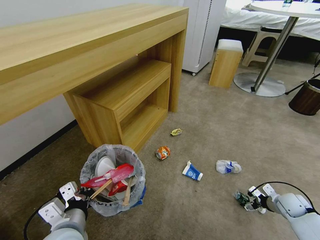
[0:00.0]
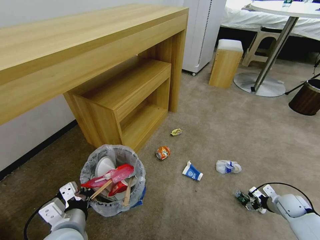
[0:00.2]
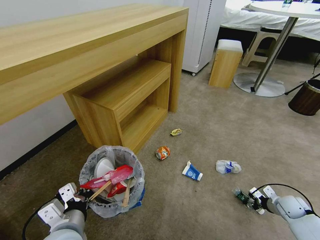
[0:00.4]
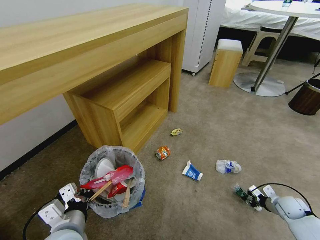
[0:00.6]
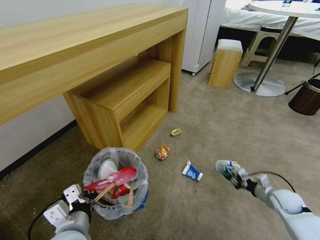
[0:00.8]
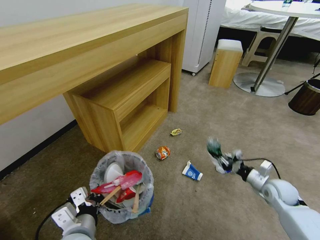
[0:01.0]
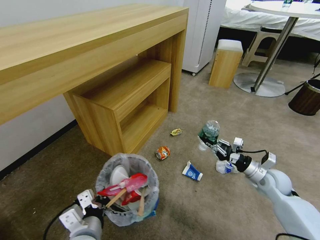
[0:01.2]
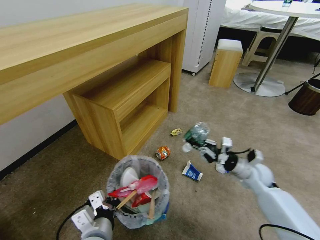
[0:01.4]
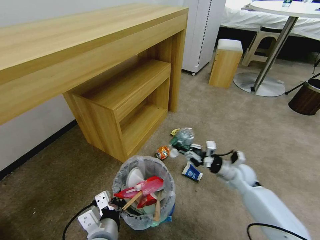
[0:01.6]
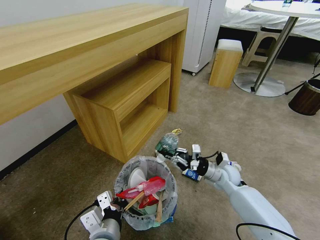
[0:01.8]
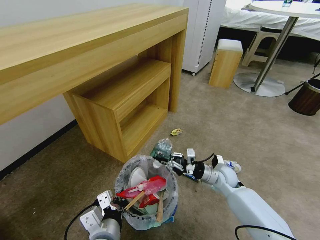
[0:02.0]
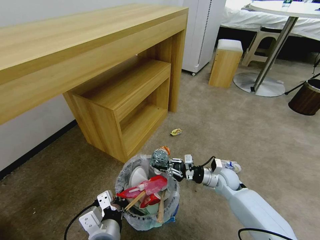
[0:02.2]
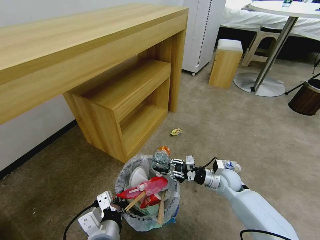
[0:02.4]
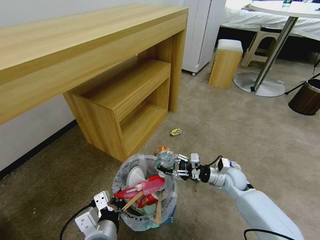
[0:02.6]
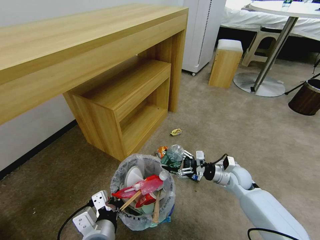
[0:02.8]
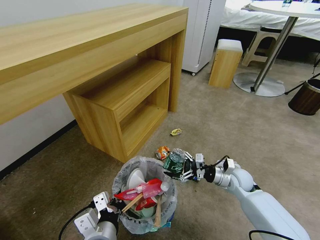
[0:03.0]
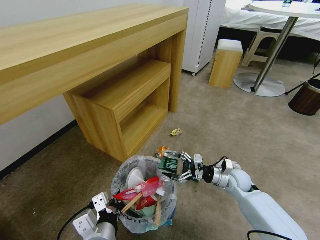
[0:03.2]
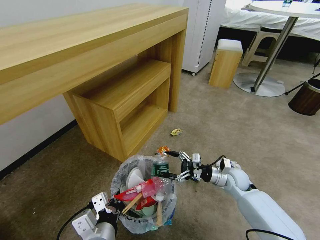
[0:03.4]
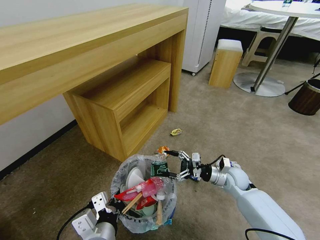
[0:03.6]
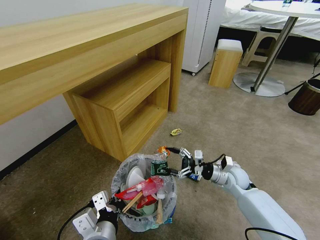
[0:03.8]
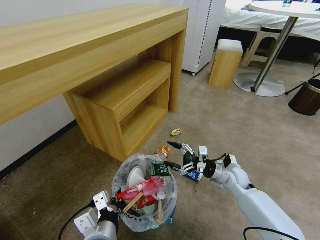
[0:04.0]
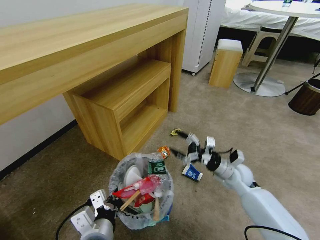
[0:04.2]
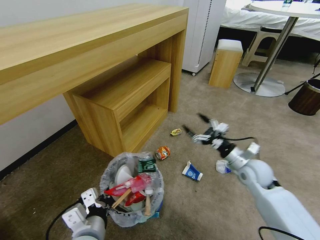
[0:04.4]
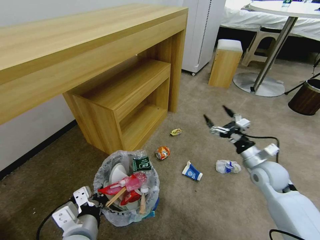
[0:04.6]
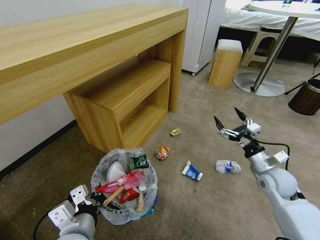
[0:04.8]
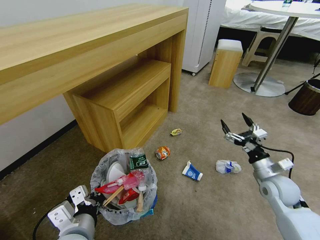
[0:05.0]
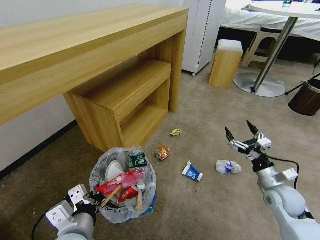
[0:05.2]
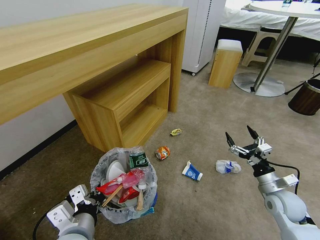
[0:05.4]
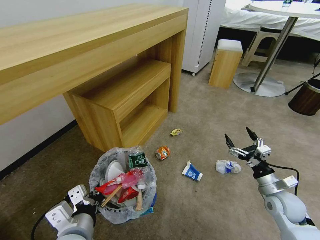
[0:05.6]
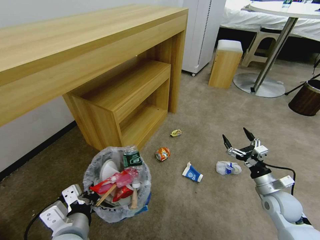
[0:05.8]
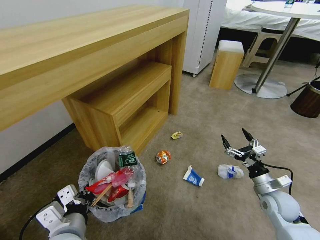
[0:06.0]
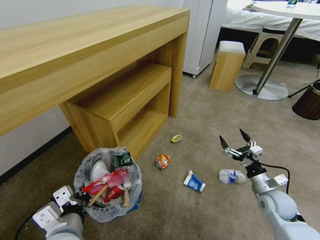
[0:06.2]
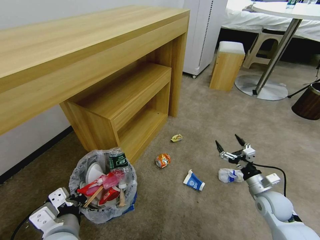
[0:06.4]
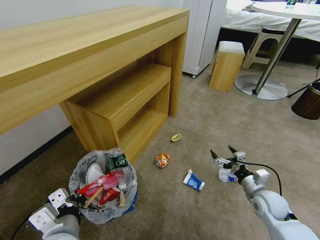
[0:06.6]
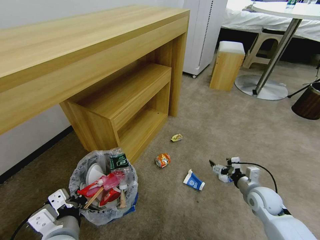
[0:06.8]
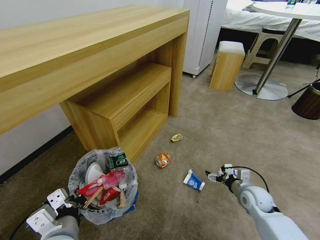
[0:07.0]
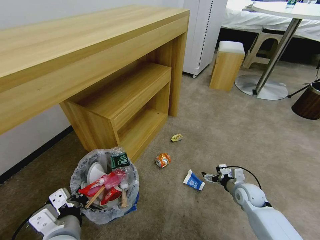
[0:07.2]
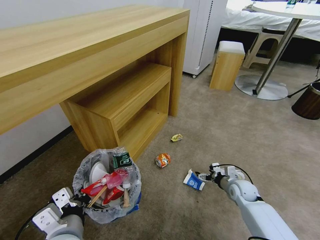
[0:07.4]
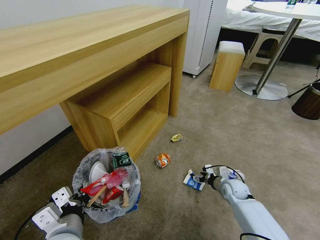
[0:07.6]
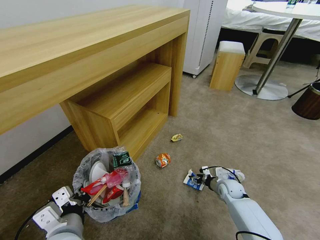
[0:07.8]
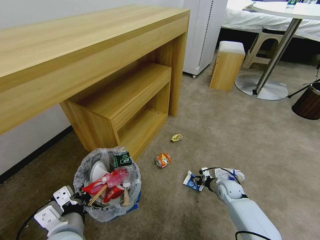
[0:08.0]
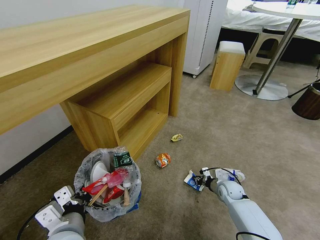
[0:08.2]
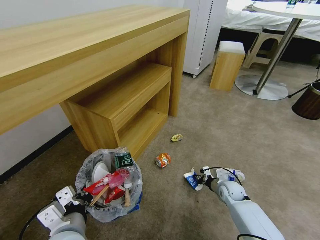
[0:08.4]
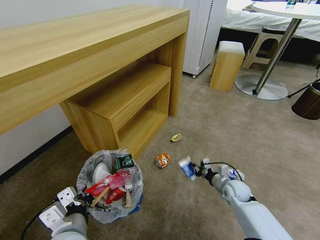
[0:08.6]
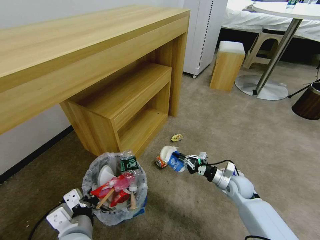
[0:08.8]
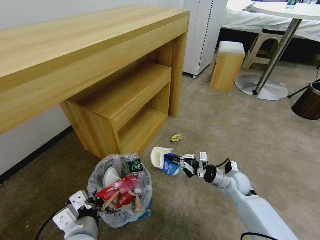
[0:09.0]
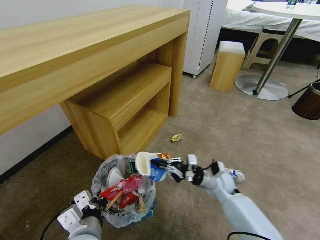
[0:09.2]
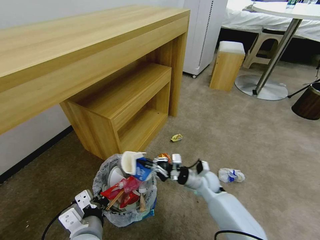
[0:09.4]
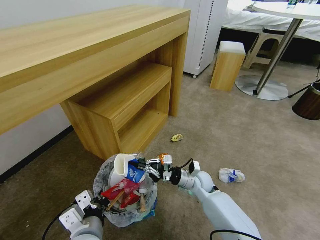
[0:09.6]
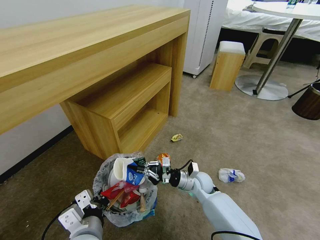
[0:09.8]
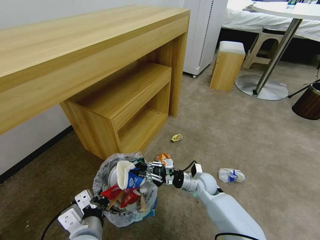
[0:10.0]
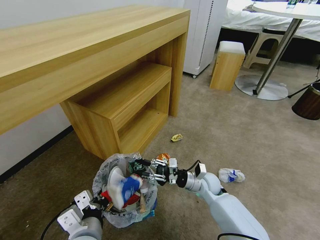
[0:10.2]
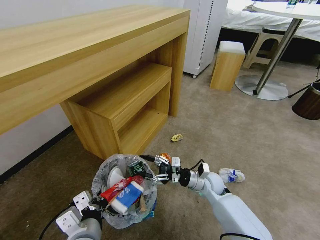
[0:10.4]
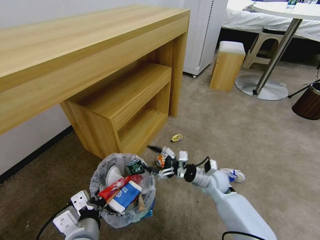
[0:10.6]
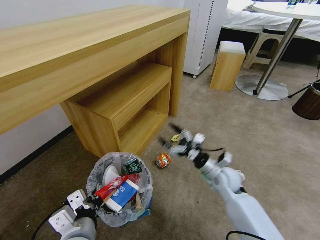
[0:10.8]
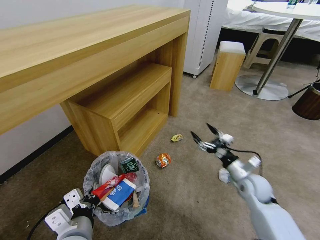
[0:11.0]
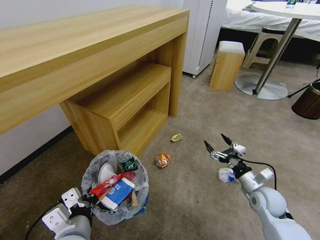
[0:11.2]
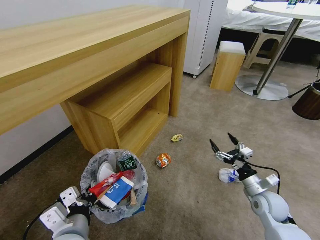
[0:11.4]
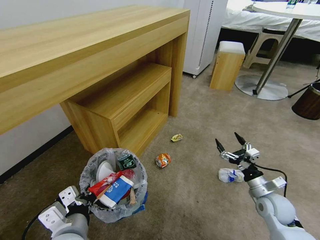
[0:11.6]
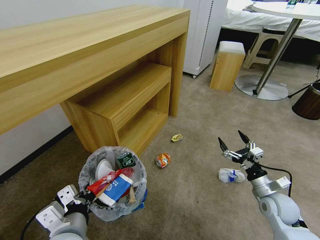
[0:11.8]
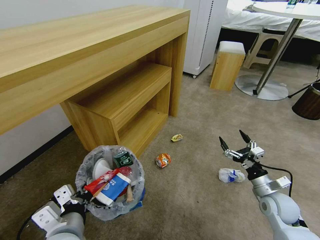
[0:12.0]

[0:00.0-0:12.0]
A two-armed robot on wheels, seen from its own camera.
Task of the whole recording: Pick up the trash bin and place the garbage on the floor into it.
0:00.0 to 0:01.6: The right gripper travels to the left by roughly 20 cm, and closes up, while the left gripper travels to the right by some 10 cm.
0:01.6 to 0:03.0: The right gripper opens.
0:03.0 to 0:04.4: The right gripper travels upward by approximately 10 cm.
0:04.4 to 0:06.0: The right gripper shifts some 15 cm backward, to the right and downward.
0:06.0 to 0:07.6: The right gripper travels downward, forward and to the left by about 15 cm.
0:07.6 to 0:09.0: The right gripper travels upward by approximately 10 cm, and closes.
0:09.0 to 0:10.4: The right gripper is displaced to the left by roughly 10 cm, and opens up.
0:10.4 to 0:12.0: The right gripper heads to the right and backward, covering roughly 20 cm.

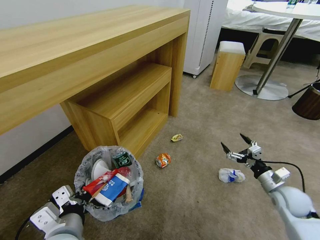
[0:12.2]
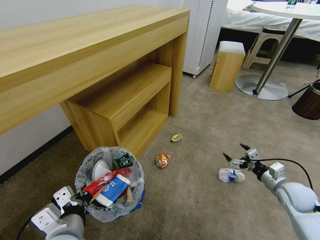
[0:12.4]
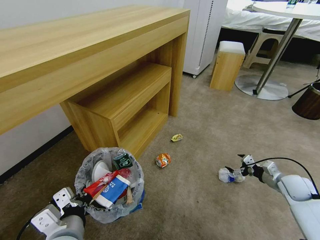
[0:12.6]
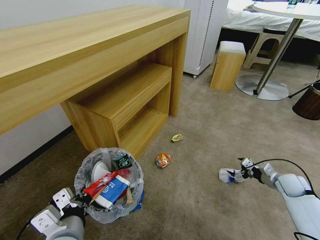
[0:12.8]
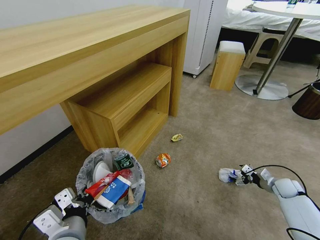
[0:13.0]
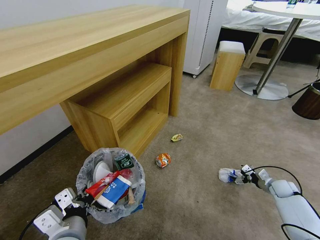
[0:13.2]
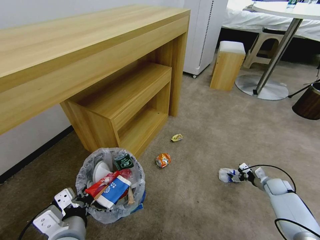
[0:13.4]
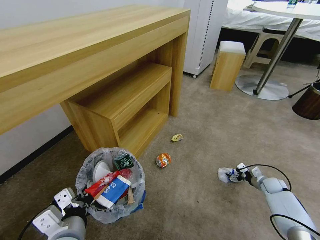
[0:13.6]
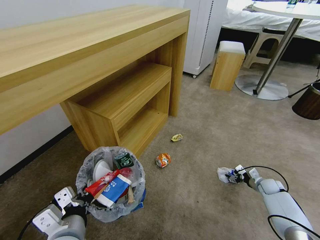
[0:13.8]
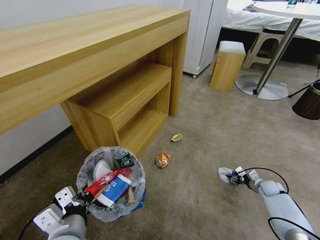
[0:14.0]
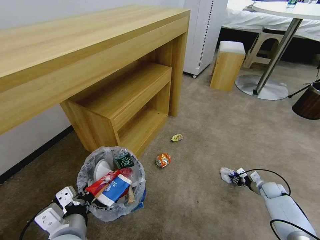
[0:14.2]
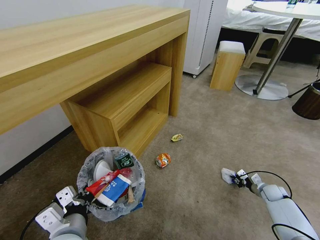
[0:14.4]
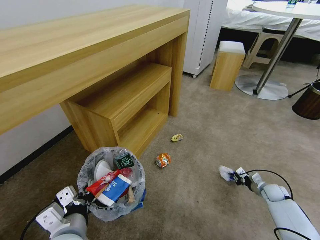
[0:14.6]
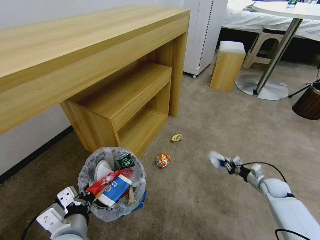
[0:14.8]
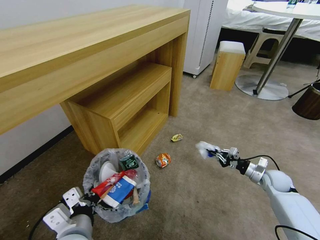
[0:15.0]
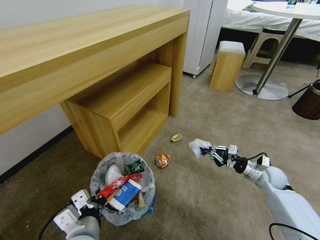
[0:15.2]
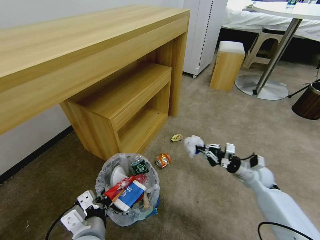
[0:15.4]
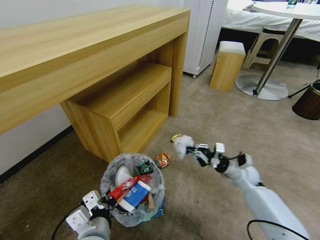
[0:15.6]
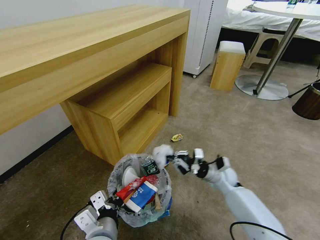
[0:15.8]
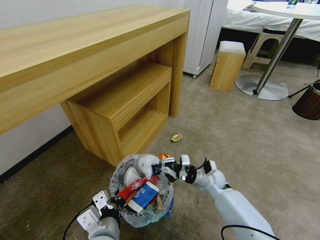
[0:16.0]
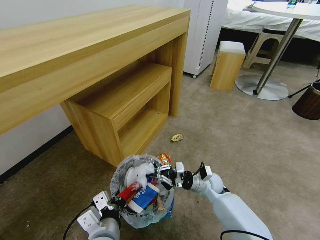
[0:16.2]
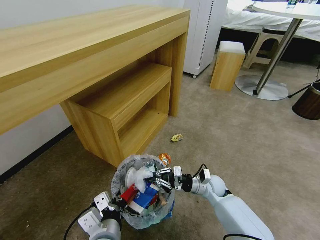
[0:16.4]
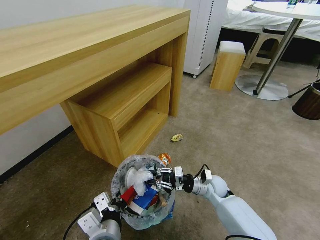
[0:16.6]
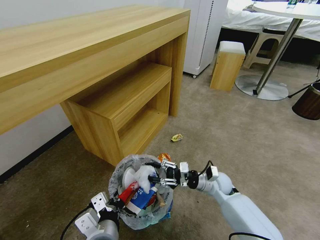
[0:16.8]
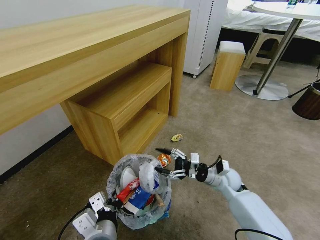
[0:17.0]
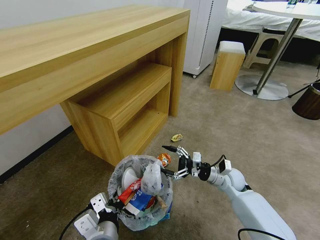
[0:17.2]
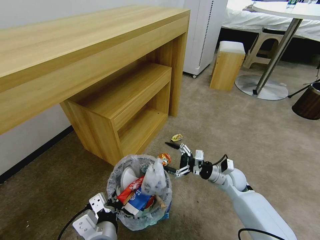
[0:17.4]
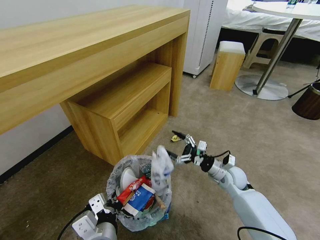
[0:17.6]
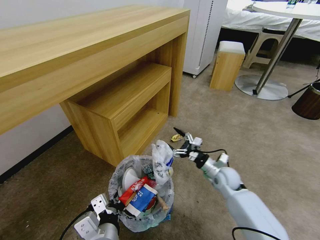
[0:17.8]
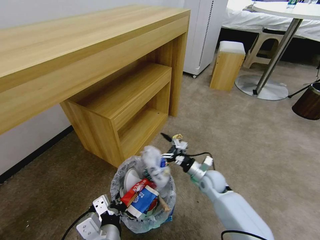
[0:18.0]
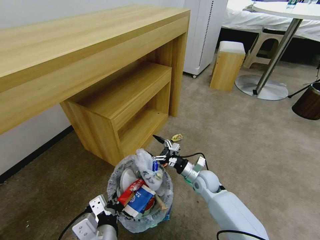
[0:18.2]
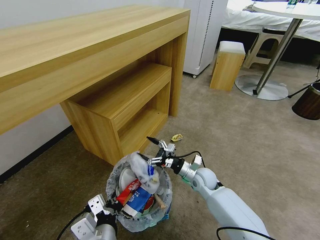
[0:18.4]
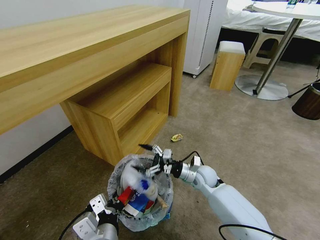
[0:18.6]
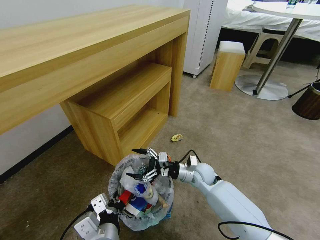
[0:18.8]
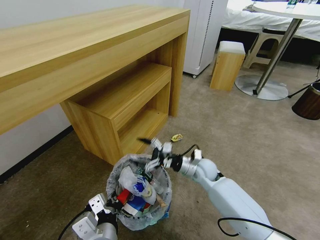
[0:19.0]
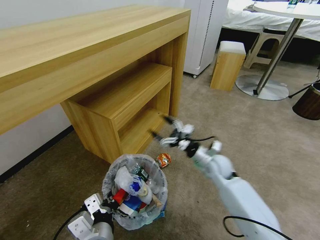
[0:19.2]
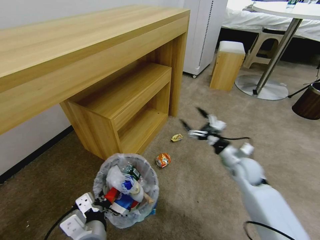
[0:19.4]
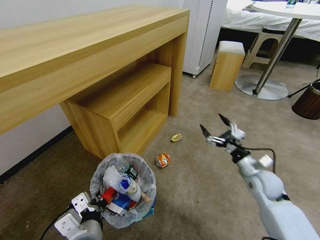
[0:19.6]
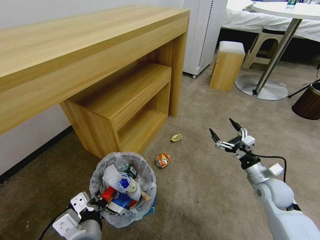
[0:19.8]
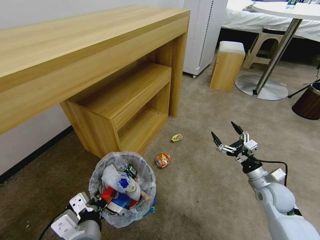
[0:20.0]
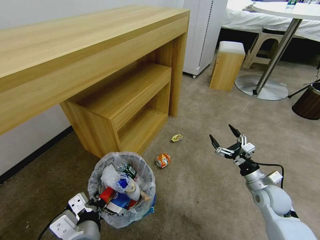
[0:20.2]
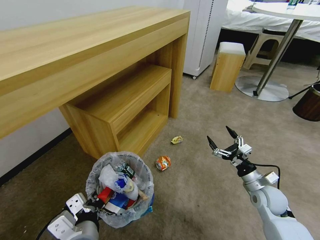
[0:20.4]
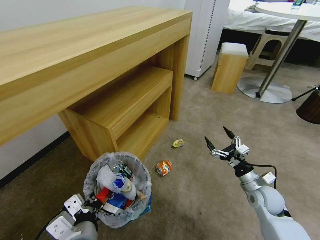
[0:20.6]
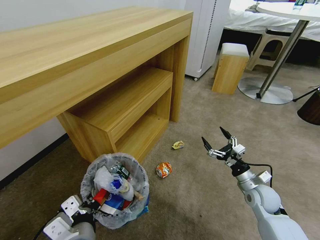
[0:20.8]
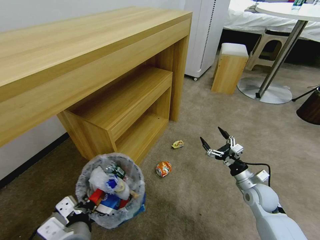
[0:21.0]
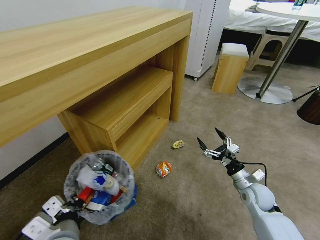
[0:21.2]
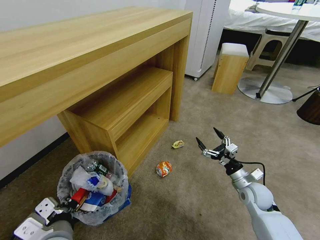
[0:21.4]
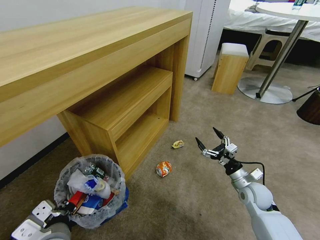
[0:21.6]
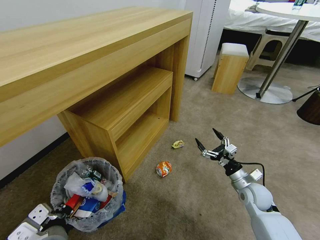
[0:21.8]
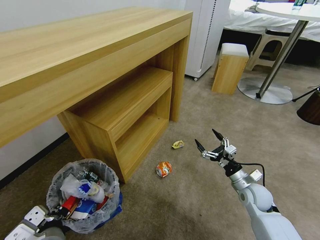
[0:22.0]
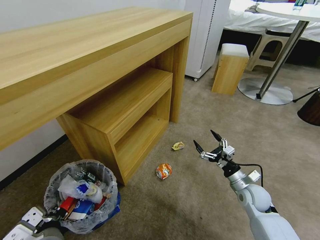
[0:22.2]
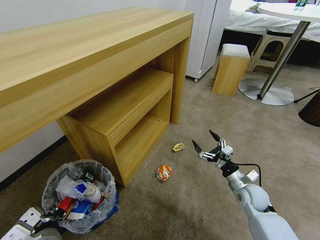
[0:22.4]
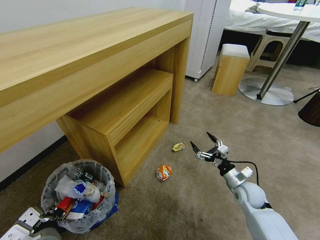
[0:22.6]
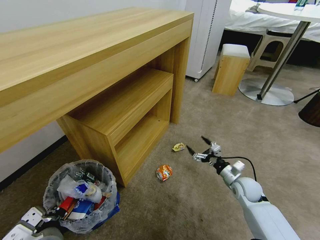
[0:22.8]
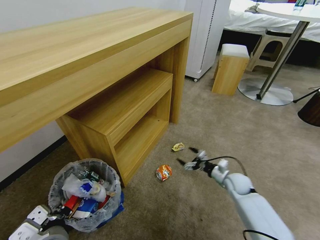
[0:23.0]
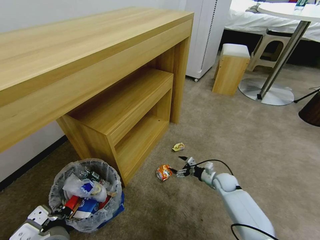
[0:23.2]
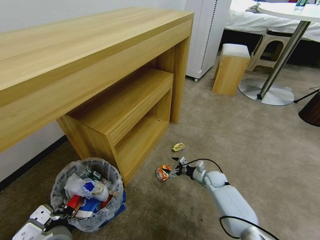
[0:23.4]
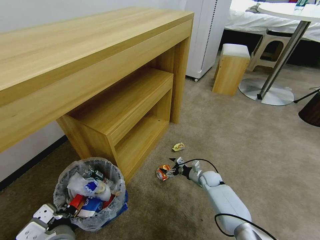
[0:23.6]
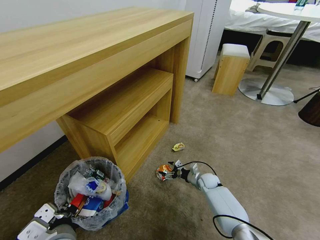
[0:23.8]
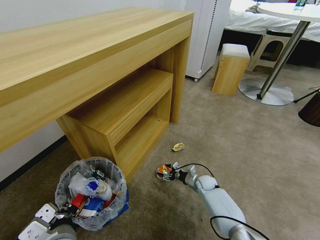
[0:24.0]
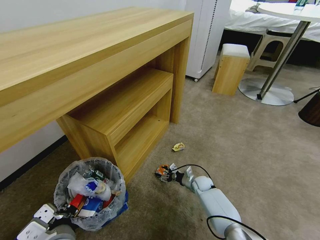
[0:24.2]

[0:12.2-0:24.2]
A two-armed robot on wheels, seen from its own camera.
Task of the whole recording: Pick up the trash bin and place the garbage on the floor into it.
0:12.2 to 0:13.8: The right gripper shifts about 20 cm downward, forward and to the right.
0:13.8 to 0:15.2: The right gripper heads upward and to the left, covering some 15 cm, and closes up.
0:15.2 to 0:16.6: The right gripper goes about 20 cm to the left.
0:16.6 to 0:18.2: The right gripper reaches roughly 5 cm to the right, then returns, and opens its fingers.
0:18.2 to 0:19.8: The right gripper moves to the right, roughly 20 cm.
0:19.8 to 0:21.2: The right gripper moves roughly 5 cm.
0:21.2 to 0:22.6: There are only small adjustments of the grippers.
0:22.6 to 0:24.2: The right gripper travels downward, to the left and forward by about 20 cm, and closes its fingers.
